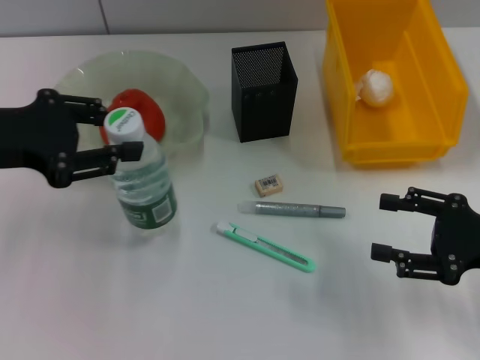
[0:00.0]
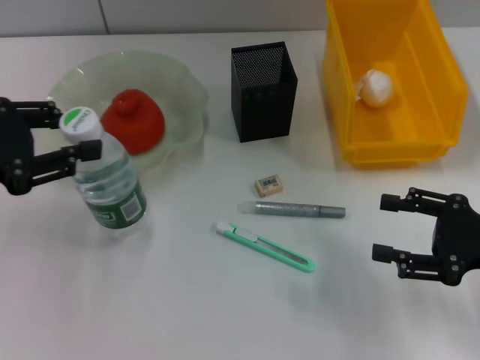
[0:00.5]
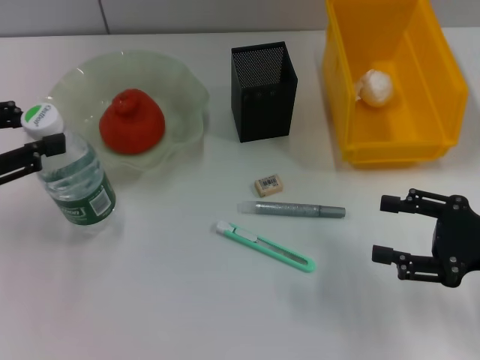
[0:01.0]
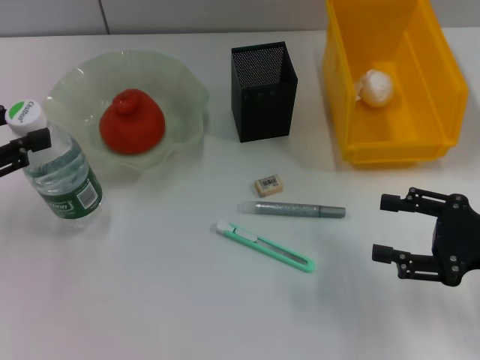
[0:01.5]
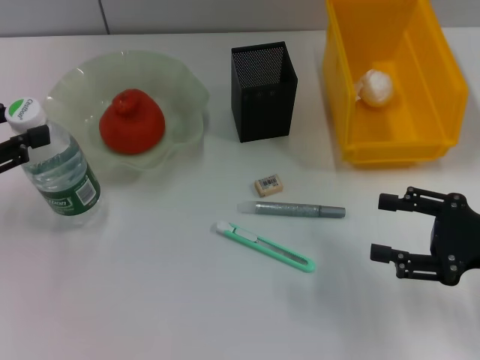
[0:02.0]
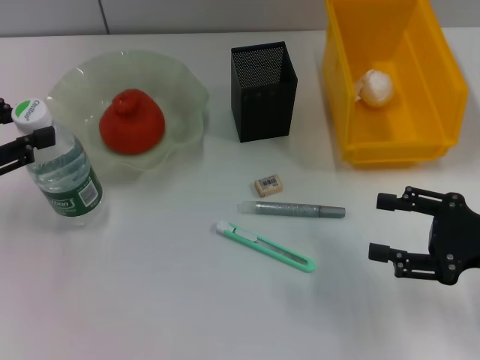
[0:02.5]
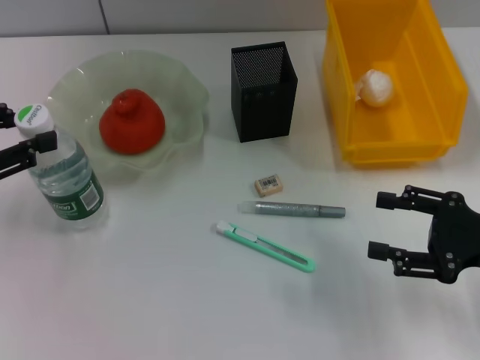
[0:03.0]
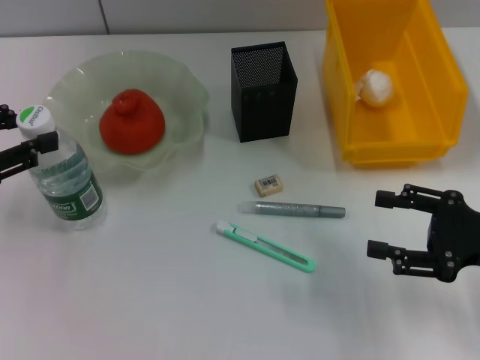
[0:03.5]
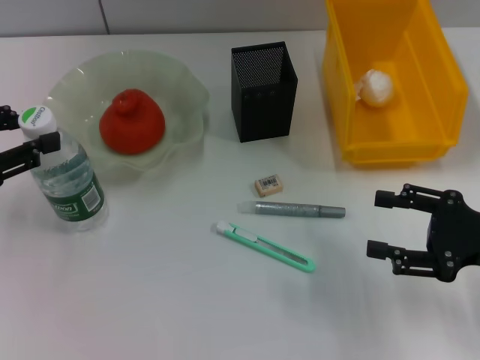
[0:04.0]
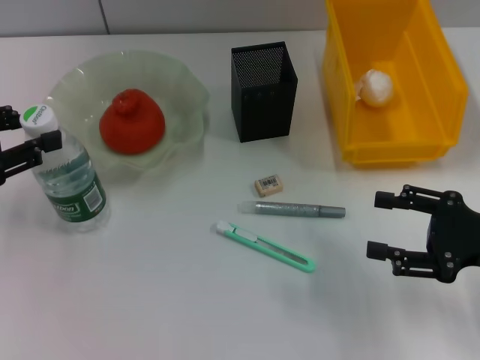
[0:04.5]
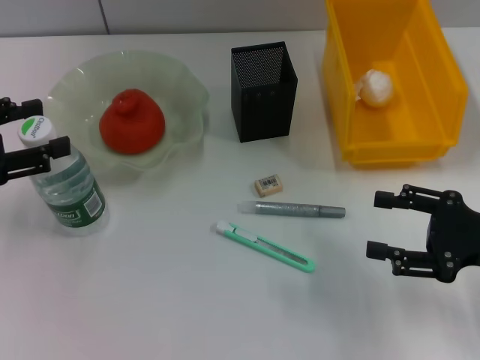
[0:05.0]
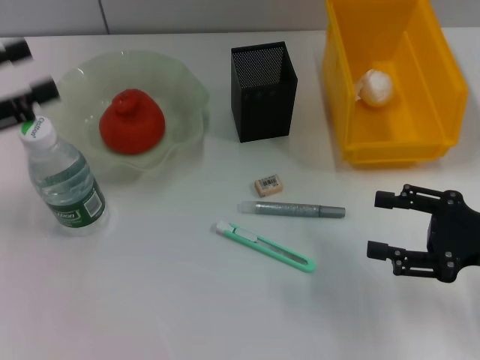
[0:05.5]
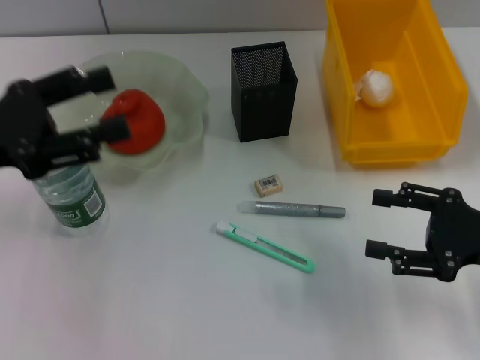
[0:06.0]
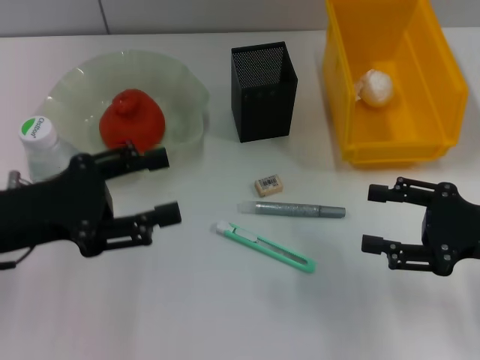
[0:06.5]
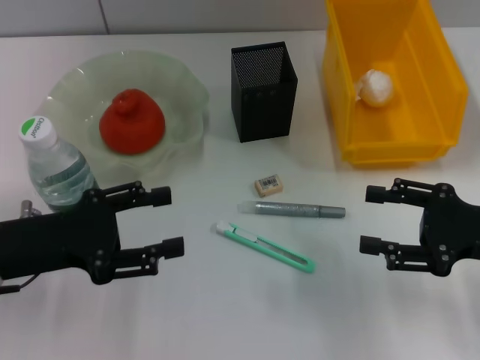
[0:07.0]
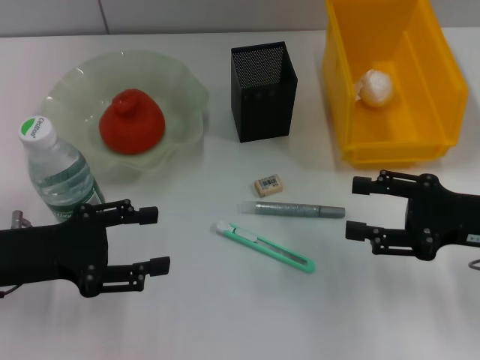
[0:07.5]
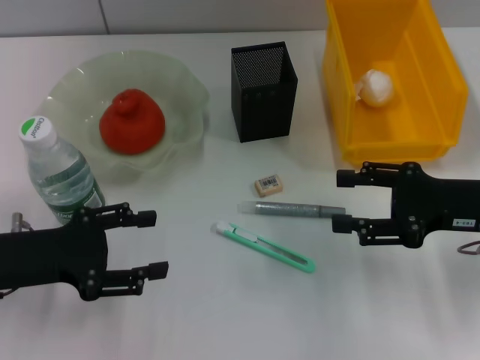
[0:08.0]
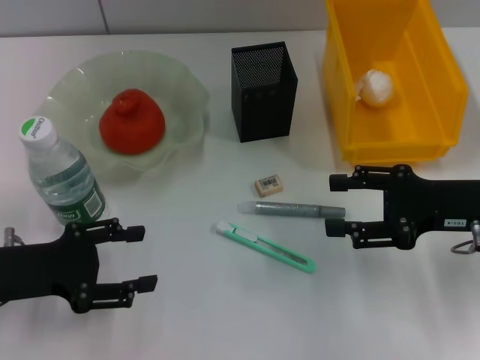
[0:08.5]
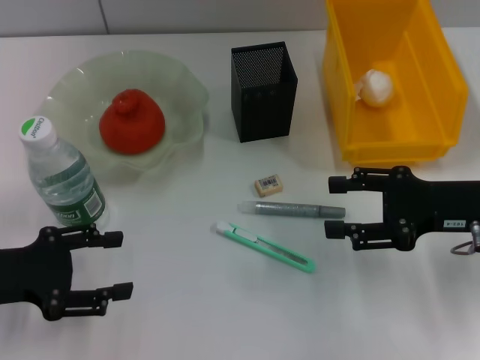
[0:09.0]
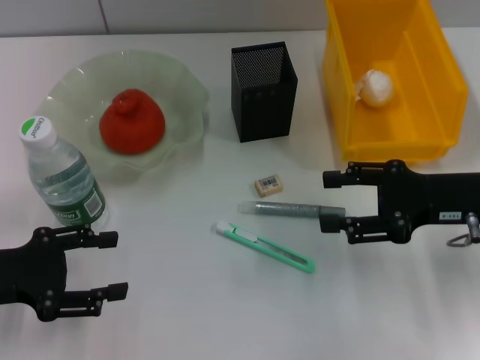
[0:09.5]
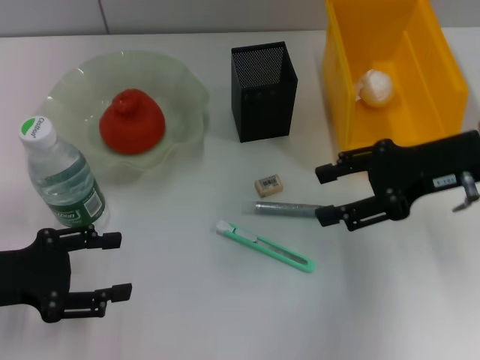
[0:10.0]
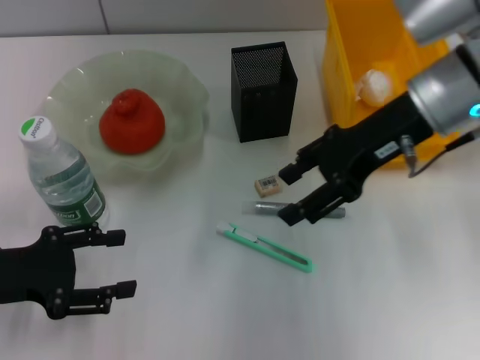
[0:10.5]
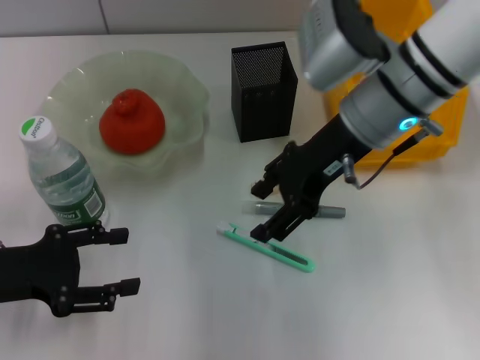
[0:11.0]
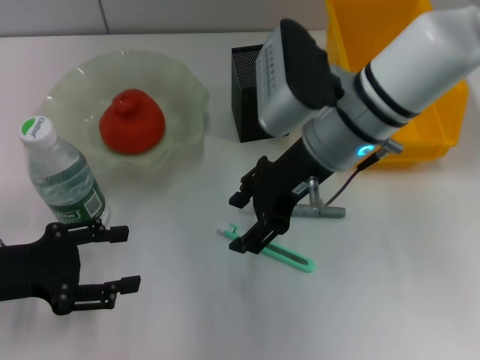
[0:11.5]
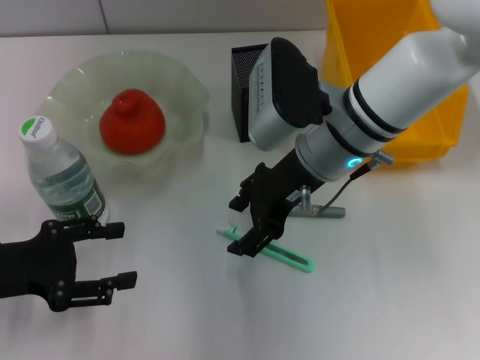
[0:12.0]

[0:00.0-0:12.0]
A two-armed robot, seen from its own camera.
Step, 0.0 to 4.5 s: Place the water bottle on the table with the left hand.
0.0 to 2.0 s: The left gripper shifts some 5 cm to the left.
2.0 to 4.0 s: Both grippers stay put.
4.0 to 6.0 s: The left gripper is displaced to the right by approximately 5 cm, and opens up.
6.0 to 8.0 s: The right gripper ends up about 5 cm from where it was. Meanwhile the left gripper moves downward, about 10 cm.
8.0 to 10.0 s: The right gripper shifts about 5 cm upward.
10.0 to 12.0 s: The right gripper goes roughly 15 cm to the left.

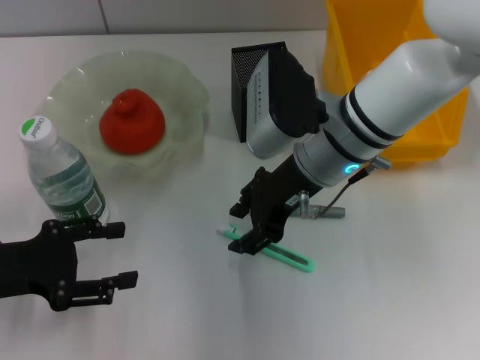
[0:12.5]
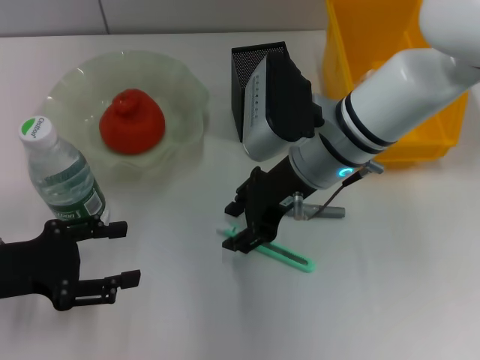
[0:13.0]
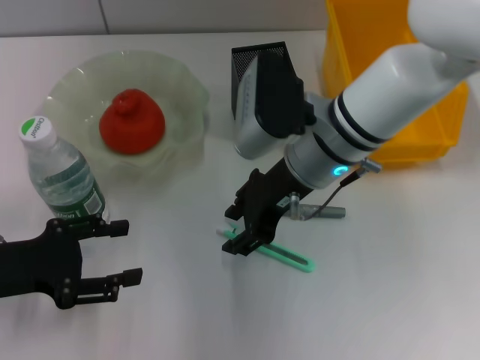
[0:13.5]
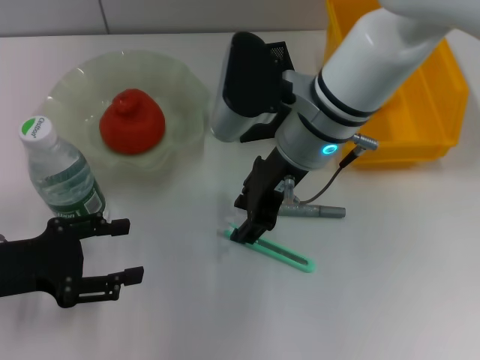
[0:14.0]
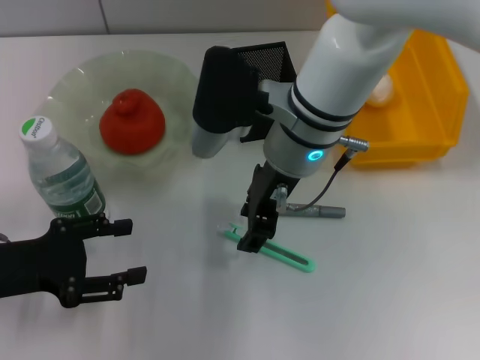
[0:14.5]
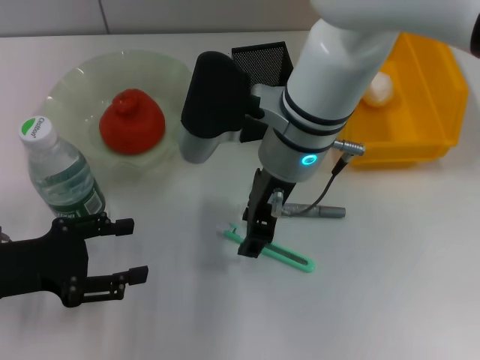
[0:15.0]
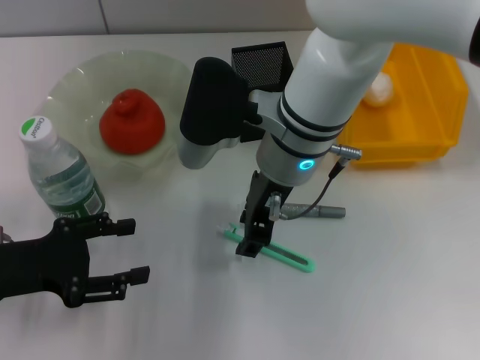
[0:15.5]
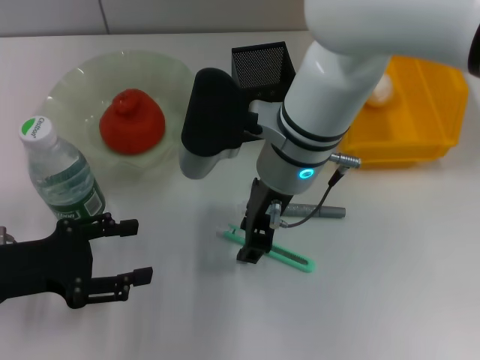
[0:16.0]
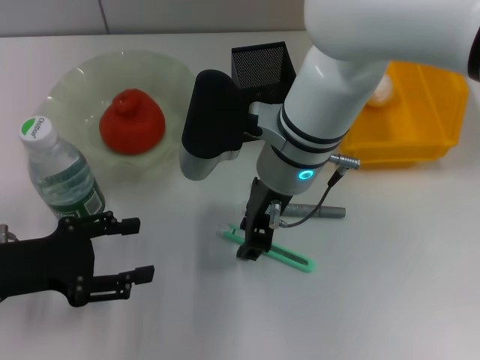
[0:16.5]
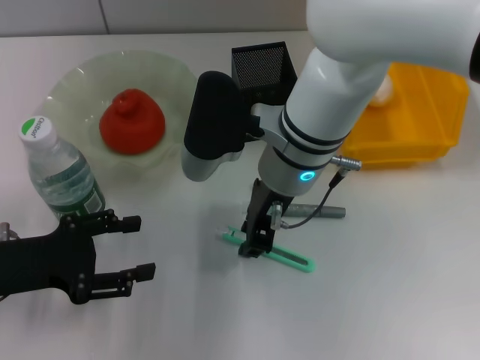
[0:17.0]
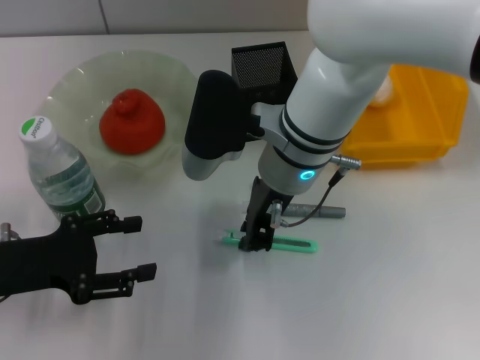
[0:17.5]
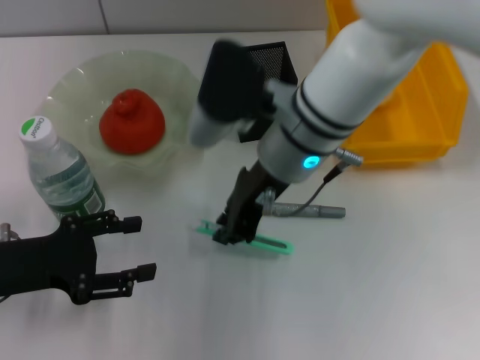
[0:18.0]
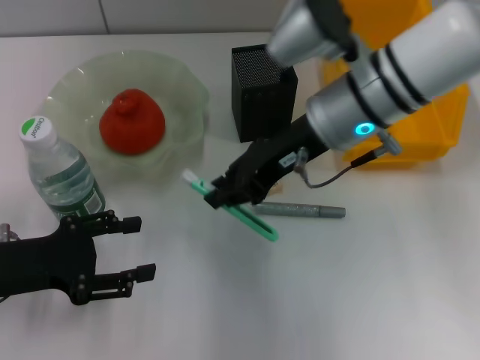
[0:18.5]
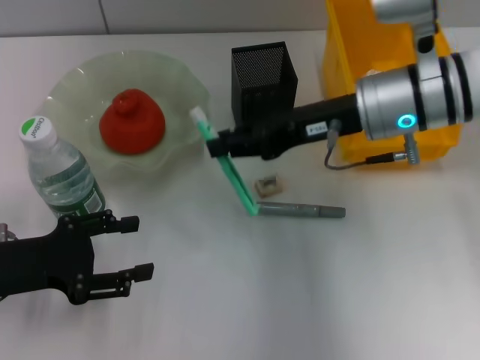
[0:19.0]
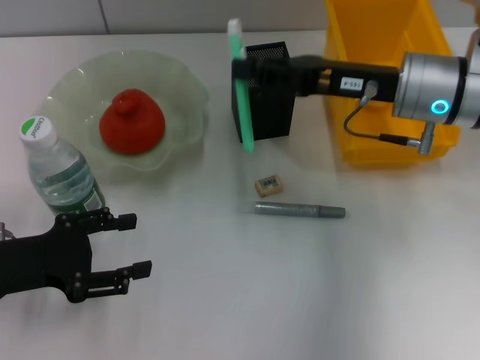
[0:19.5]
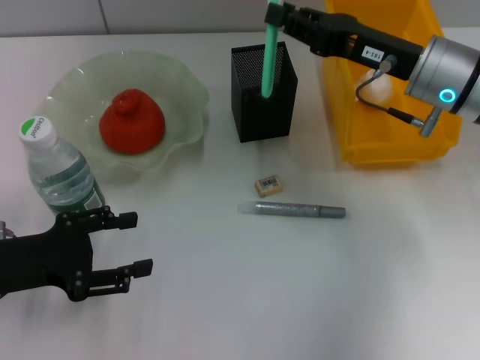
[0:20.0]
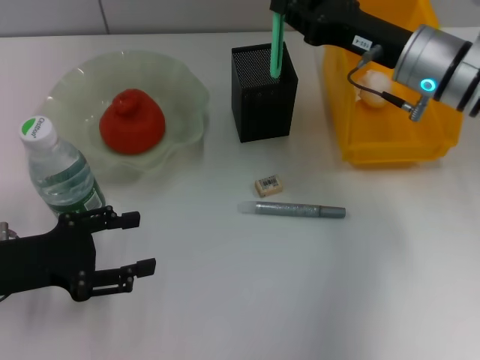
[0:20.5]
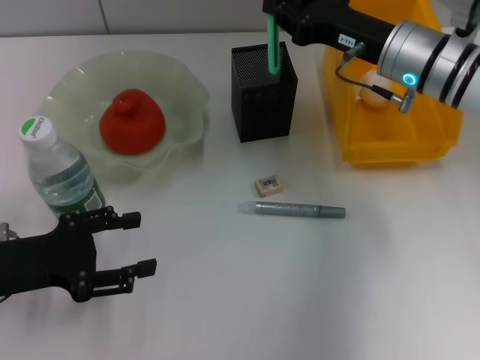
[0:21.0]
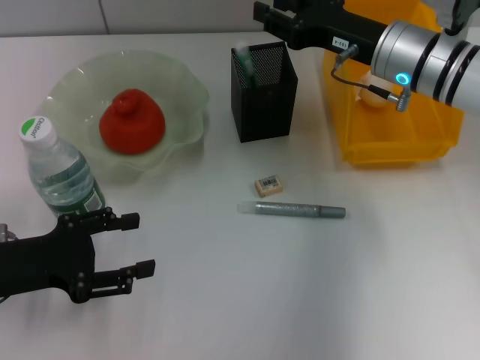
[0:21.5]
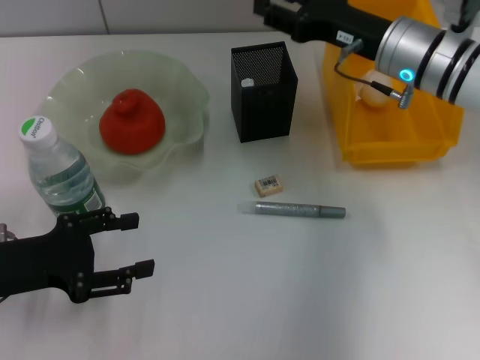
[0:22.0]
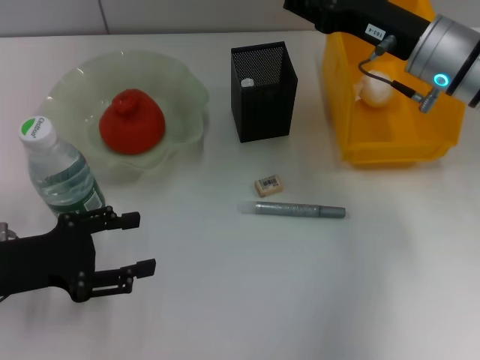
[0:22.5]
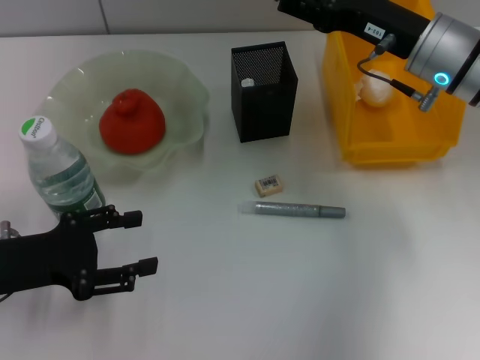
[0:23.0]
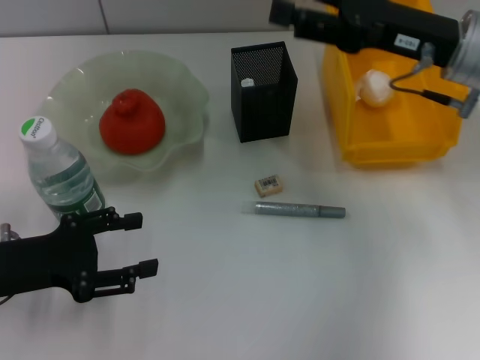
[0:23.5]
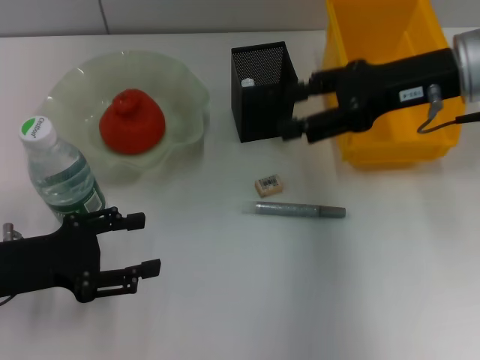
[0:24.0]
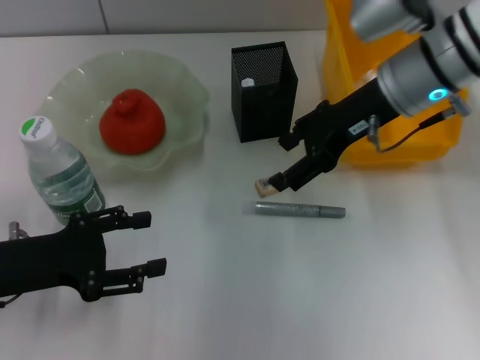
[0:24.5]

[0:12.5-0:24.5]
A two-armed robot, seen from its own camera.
Step, 12.5 to 17.5 s: Grab the blue utility knife with the right hand.
Step, 18.0 to 21.5 s: Place the blue utility knife into the pen holder with the right hand.
14.5 to 16.5 s: The grippers move only a little.
16.5 to 18.5 s: The right gripper moves to the right, roughly 5 cm, and closes its fingers.
18.5 to 20.5 s: The right gripper goes roughly 10 cm to the right.
20.5 to 22.5 s: The right gripper opens up.
22.5 to 24.5 s: The right gripper changes place by roughly 5 cm.

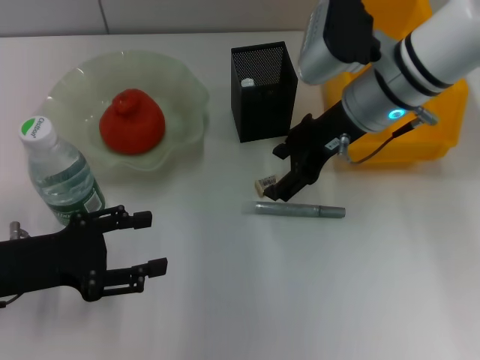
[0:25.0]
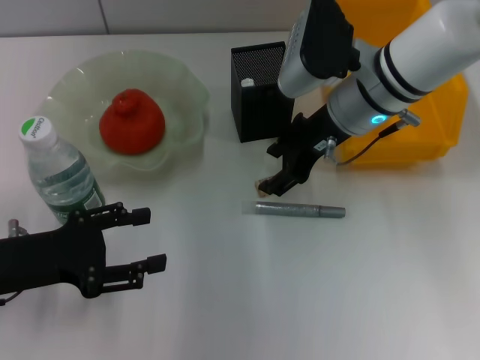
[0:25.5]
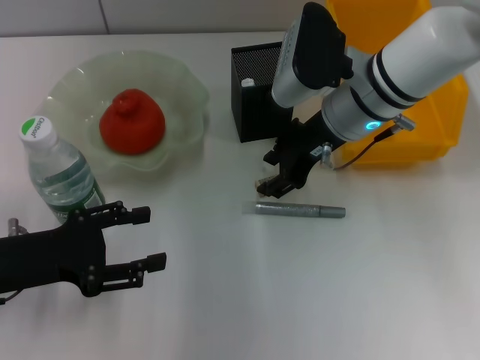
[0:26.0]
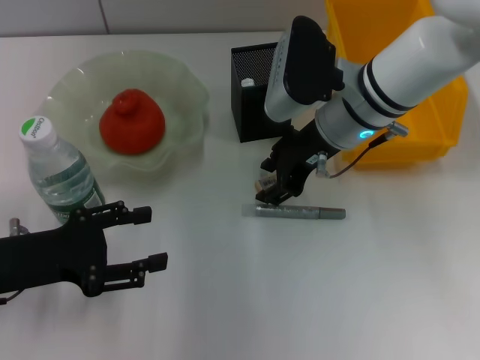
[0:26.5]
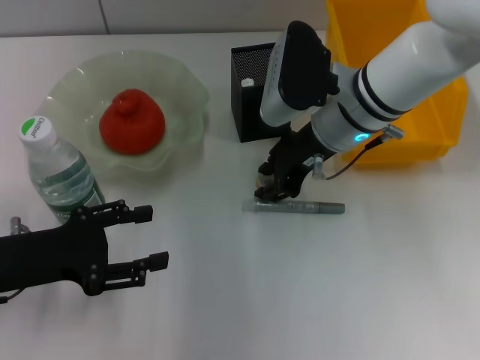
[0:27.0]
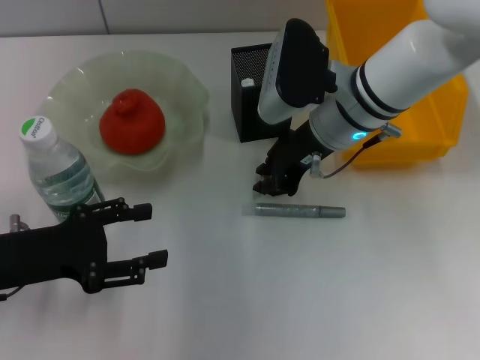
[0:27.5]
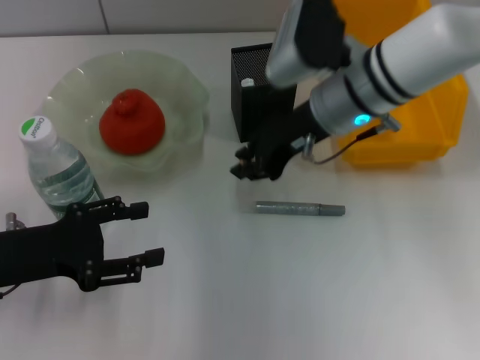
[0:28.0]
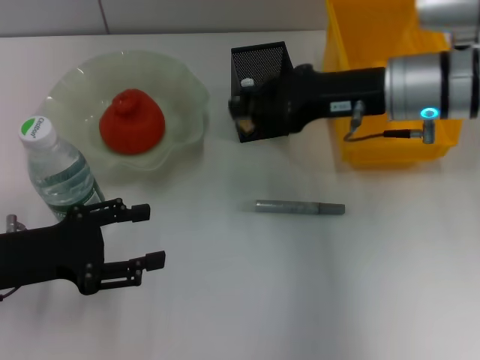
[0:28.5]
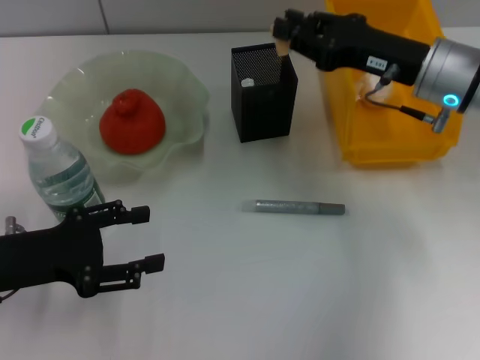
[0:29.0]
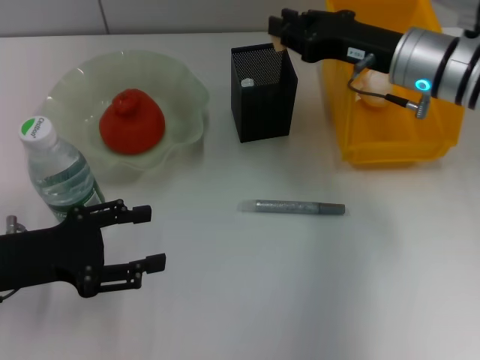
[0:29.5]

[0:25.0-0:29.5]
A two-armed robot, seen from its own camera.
Step, 25.0 to 27.0 s: Grab the eraser with the right hand.
25.0 to 27.0 s: The right gripper closes up.
27.0 to 29.5 s: The right gripper goes some 10 cm to the right.
